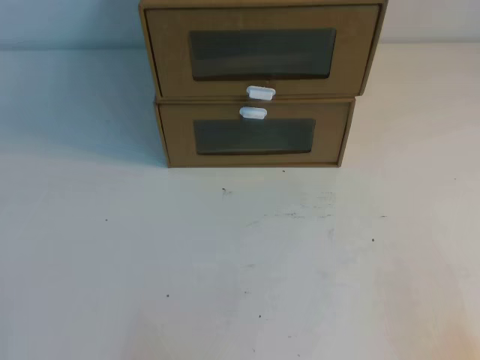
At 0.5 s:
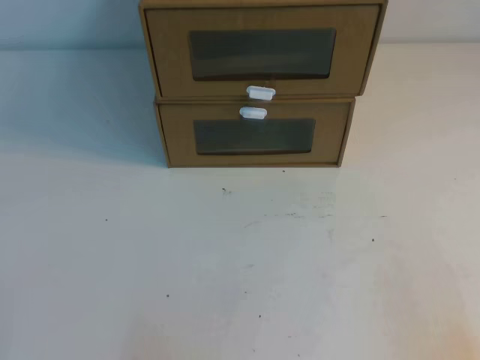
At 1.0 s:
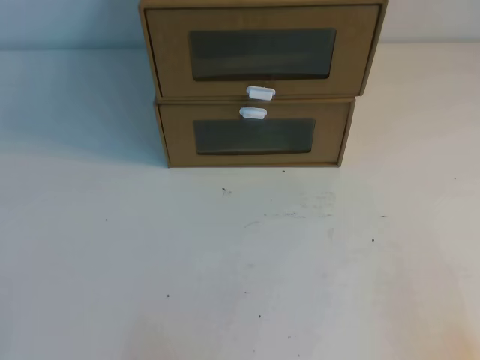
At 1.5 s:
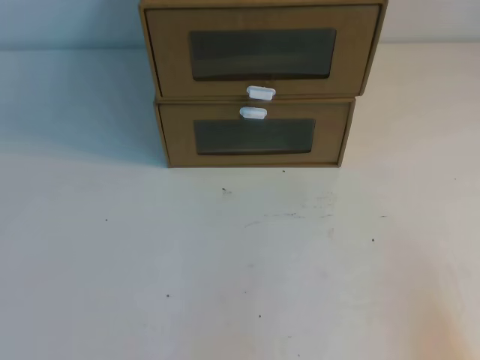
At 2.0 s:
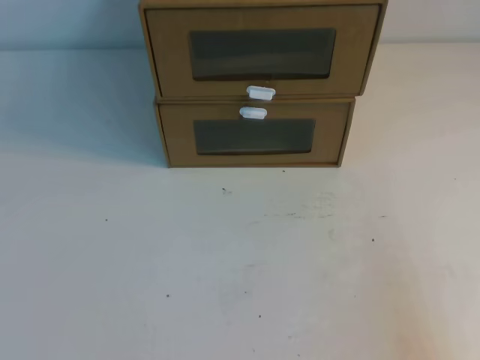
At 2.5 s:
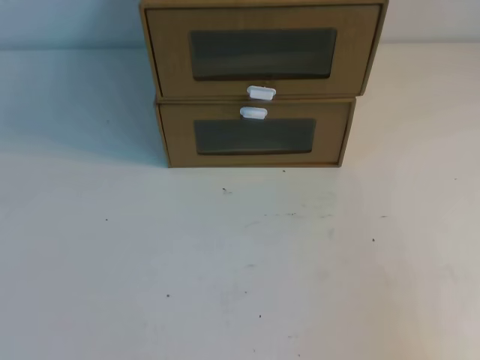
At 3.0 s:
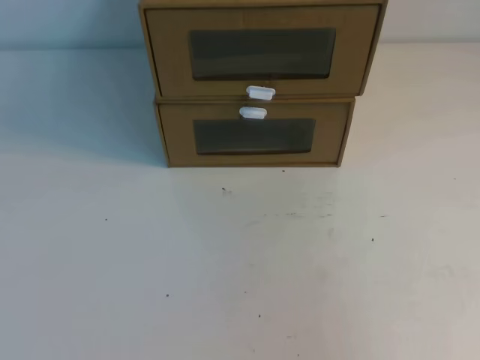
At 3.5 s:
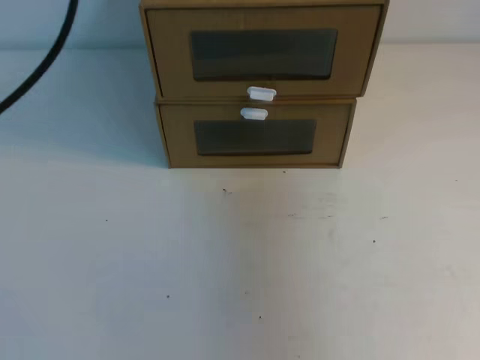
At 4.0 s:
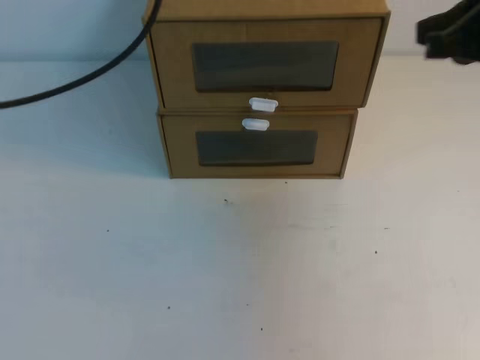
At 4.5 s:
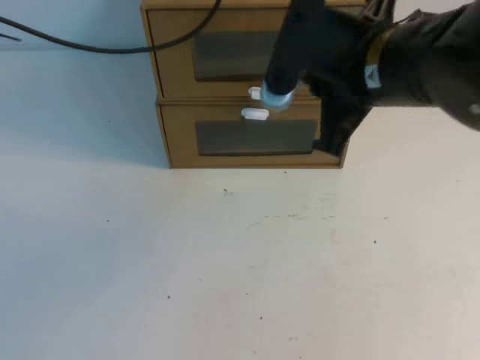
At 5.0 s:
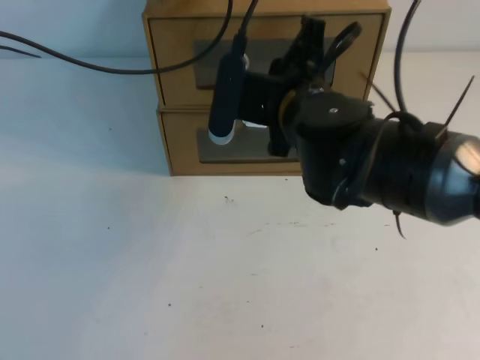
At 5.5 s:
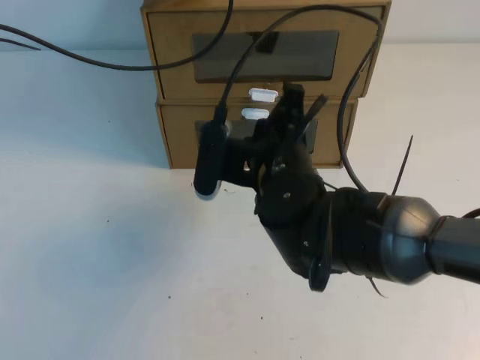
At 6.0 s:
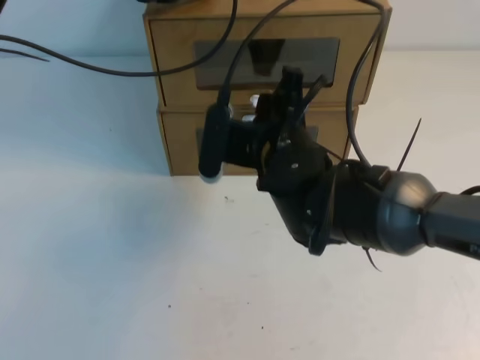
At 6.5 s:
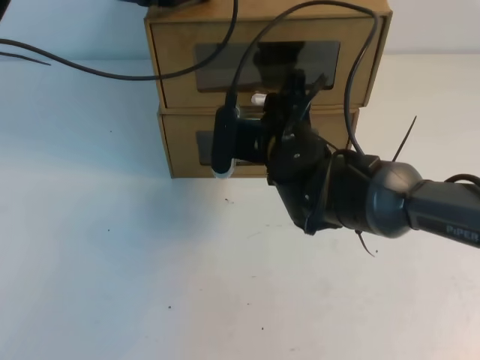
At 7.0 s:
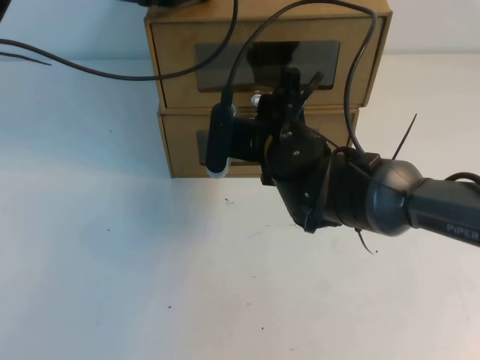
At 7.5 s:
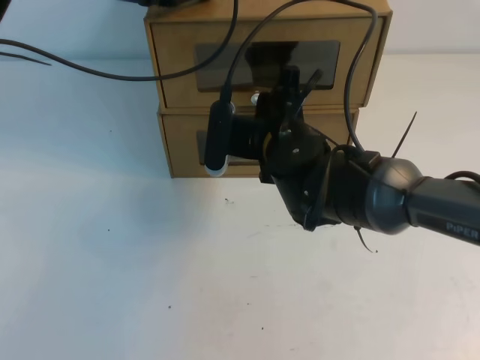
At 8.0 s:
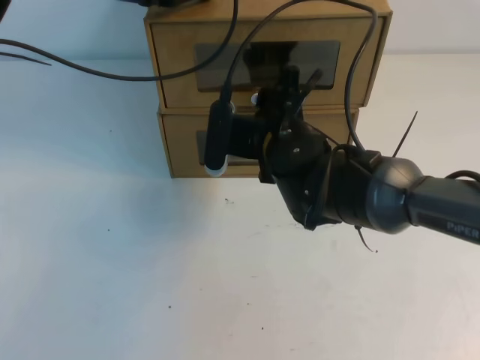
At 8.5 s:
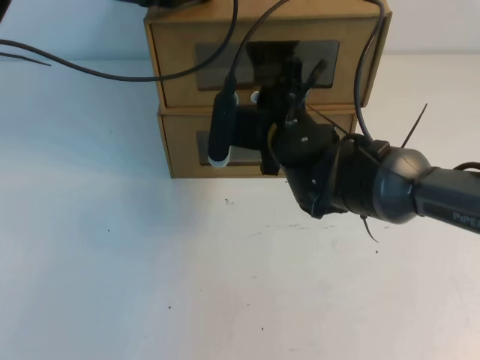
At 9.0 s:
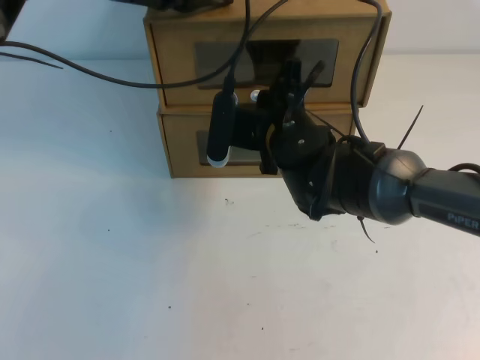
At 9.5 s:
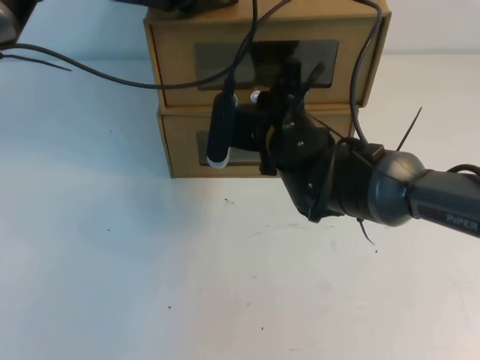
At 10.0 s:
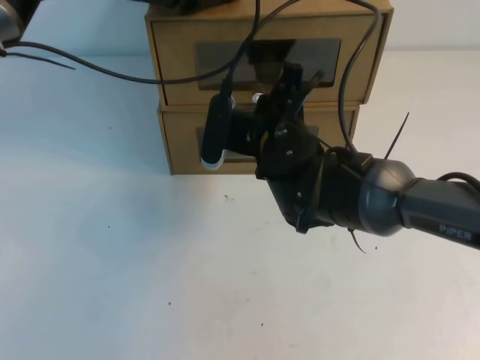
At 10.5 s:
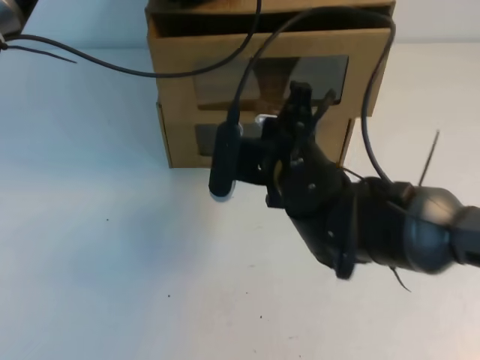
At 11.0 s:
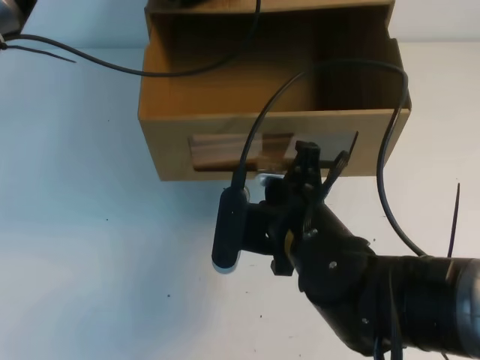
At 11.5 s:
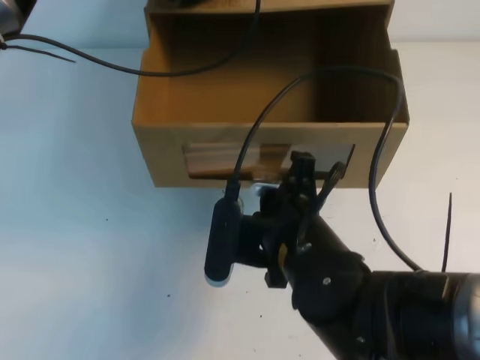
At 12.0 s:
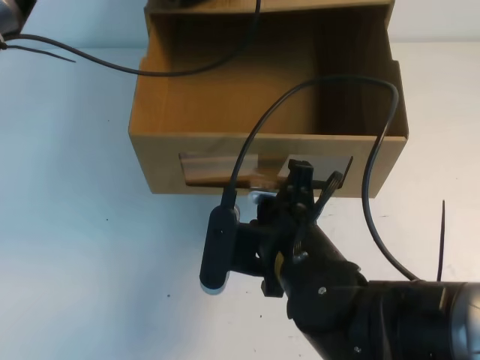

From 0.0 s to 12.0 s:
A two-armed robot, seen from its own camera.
Task of the whole recording: open the shoebox on the table.
From 2.0 s to 4.0 s: Both grippers move forward and upward, about 35 cm.
From 4.0 s to 6.0 s: The right gripper shifts roughly 25 cm to the left and downward, and opens up. The left gripper is displaced forward, downward and to the right by some 15 cm.
From 6.0 s to 8.0 s: The right gripper opens up.
From 8.0 s to 10.0 s: The right gripper closes up.
From 10.0 s to 12.0 s: The right gripper shifts some 15 cm backward.

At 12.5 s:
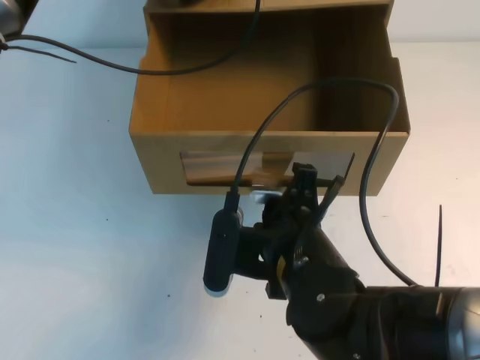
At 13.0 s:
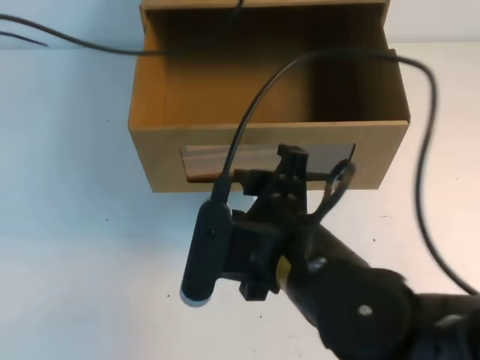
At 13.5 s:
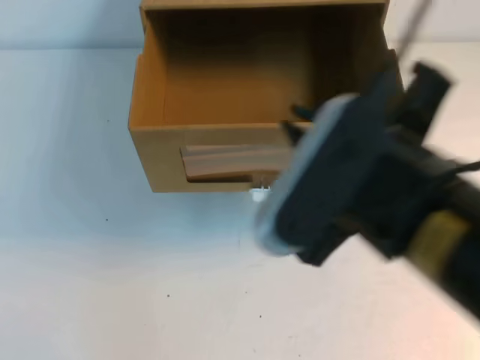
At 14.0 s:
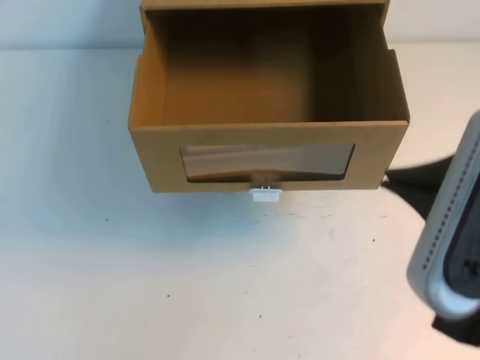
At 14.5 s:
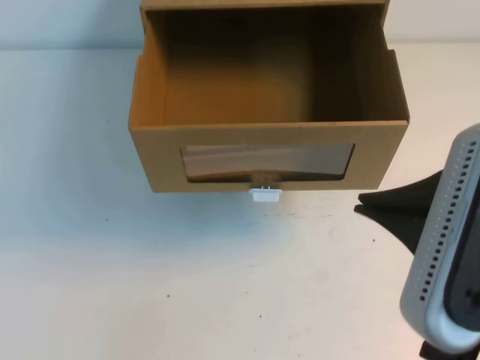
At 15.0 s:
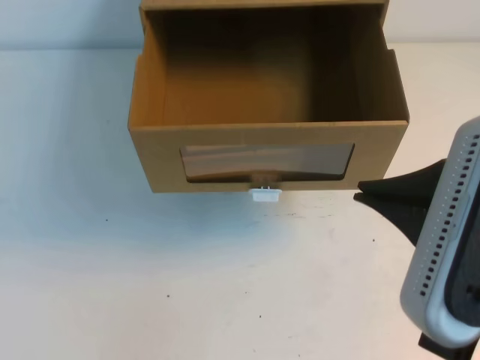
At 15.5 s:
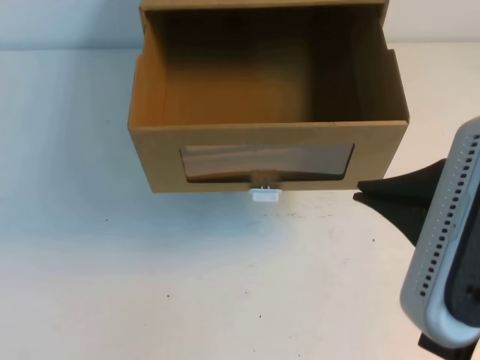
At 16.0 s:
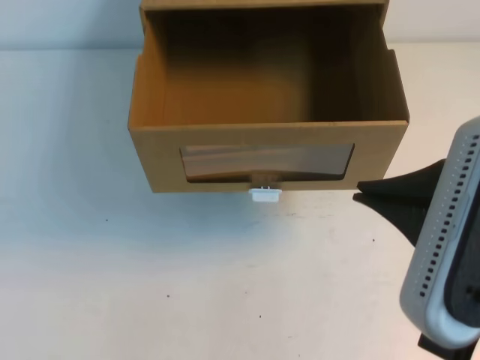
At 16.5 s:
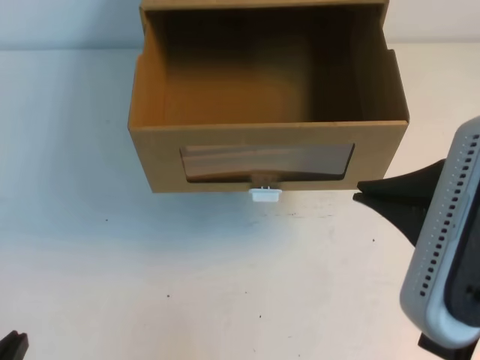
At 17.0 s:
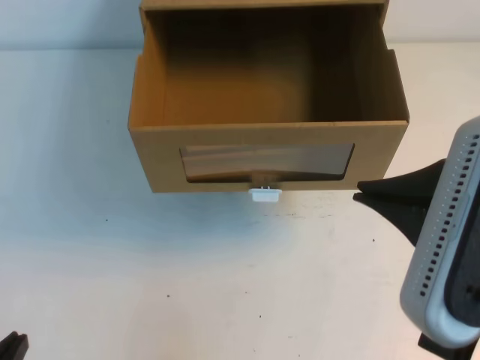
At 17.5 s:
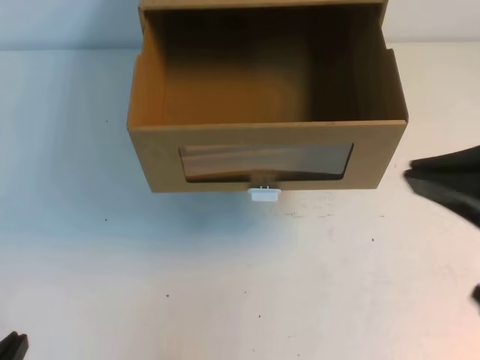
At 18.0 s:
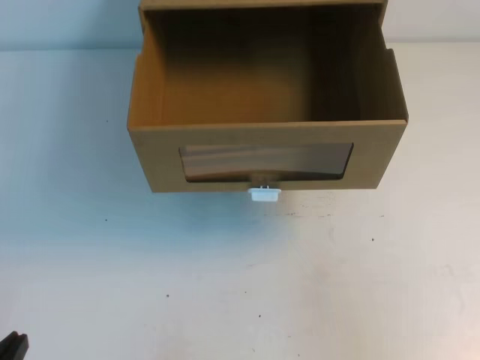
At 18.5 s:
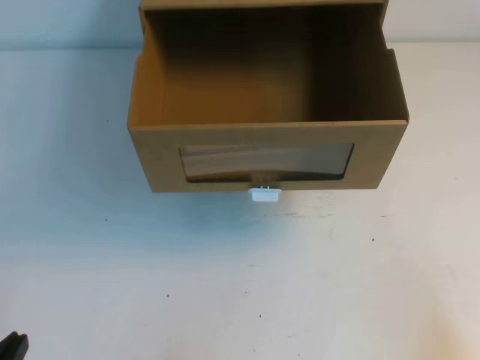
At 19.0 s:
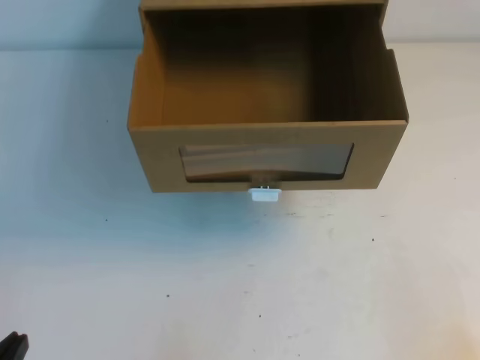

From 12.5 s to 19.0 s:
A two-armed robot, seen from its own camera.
Task of the whole recording: open the shoebox on the table.
Step, from 12.5 s to 19.0 s: Open the shoe box.
From 12.5 s to 14.5 s: The right gripper is displaced upward, to the right and backward by about 25 cm, and closes its fingers. The left gripper moves backward, approximately 40 cm.
From 17.0 s to 19.0 s: The right gripper is displaced downward and to the right by some 30 cm.

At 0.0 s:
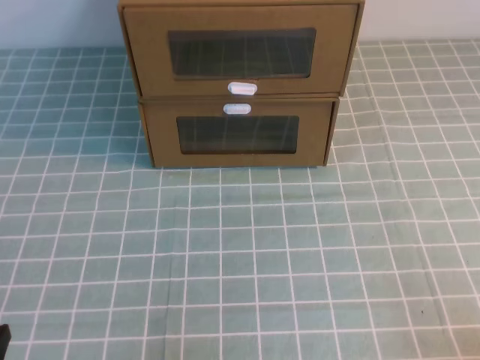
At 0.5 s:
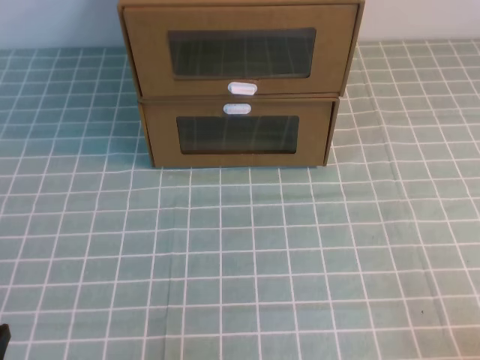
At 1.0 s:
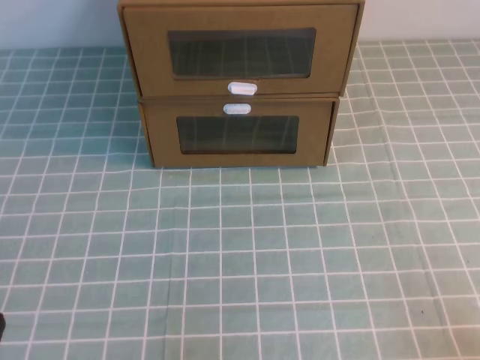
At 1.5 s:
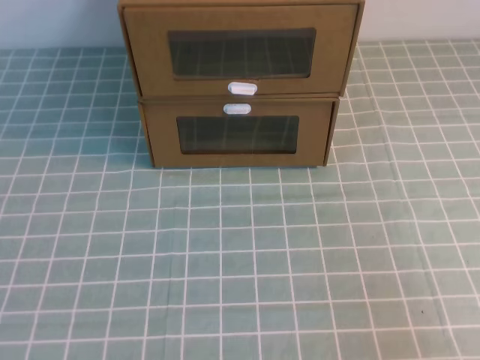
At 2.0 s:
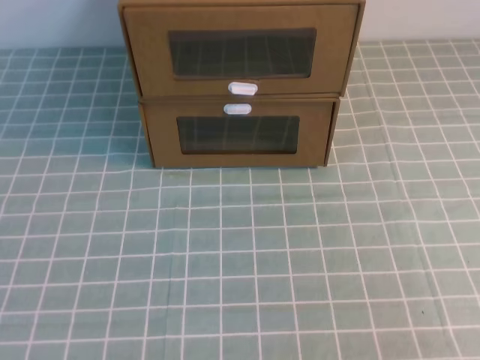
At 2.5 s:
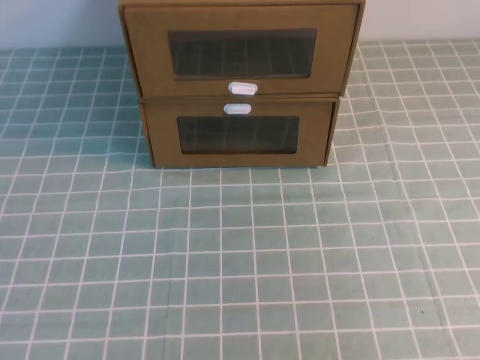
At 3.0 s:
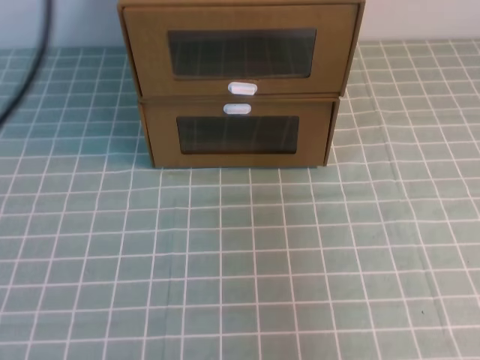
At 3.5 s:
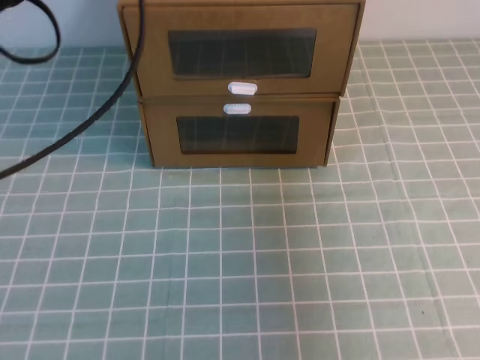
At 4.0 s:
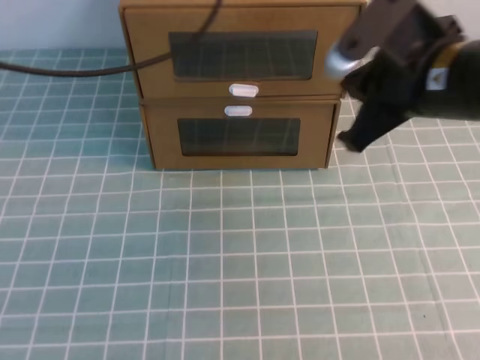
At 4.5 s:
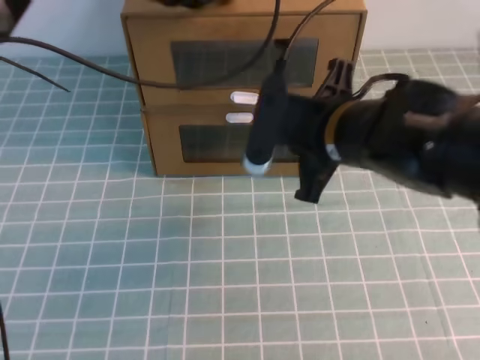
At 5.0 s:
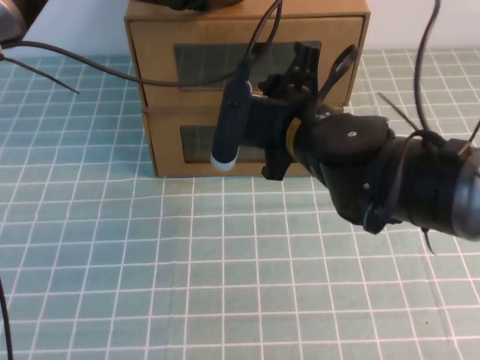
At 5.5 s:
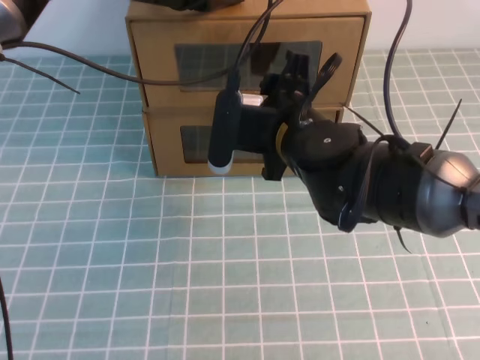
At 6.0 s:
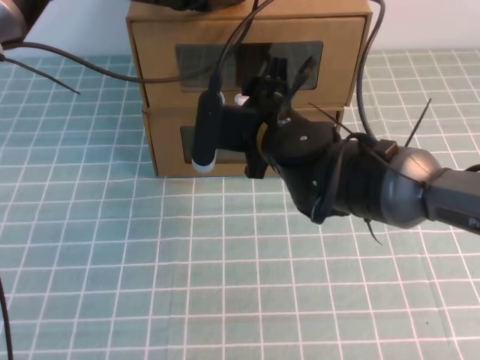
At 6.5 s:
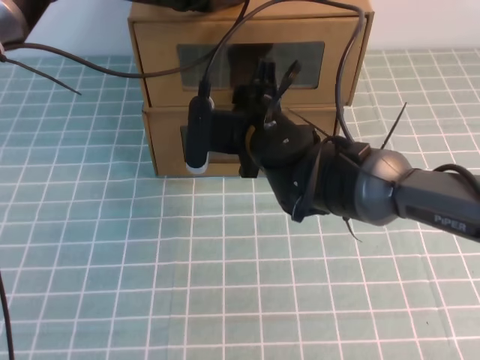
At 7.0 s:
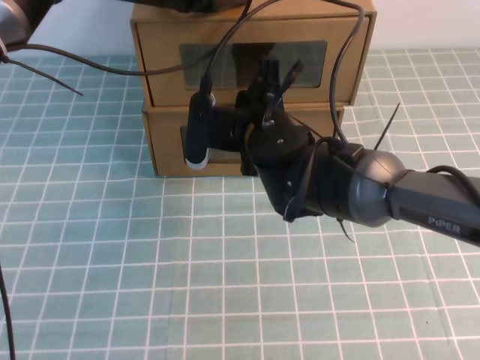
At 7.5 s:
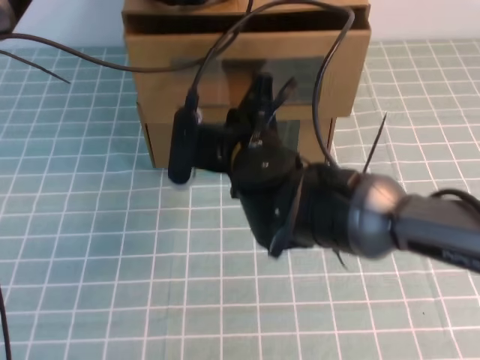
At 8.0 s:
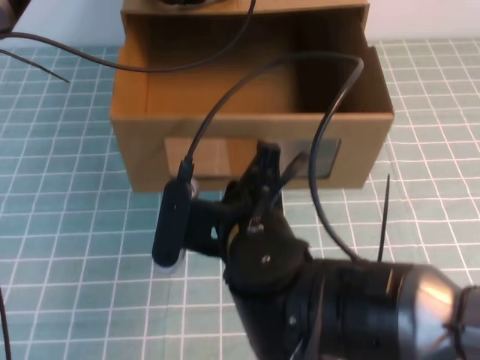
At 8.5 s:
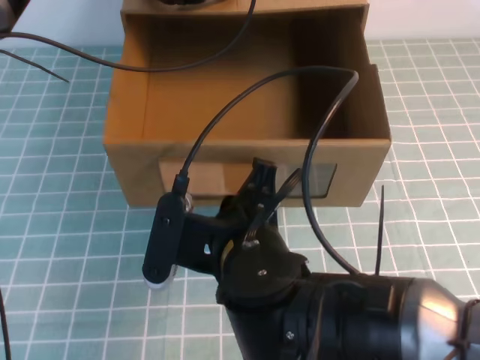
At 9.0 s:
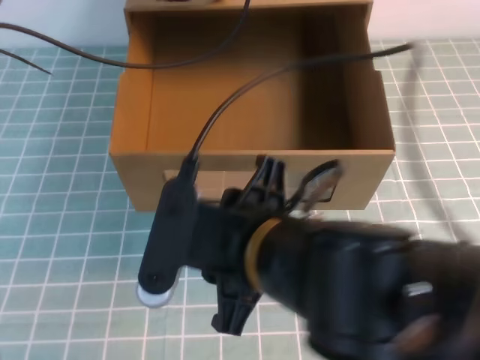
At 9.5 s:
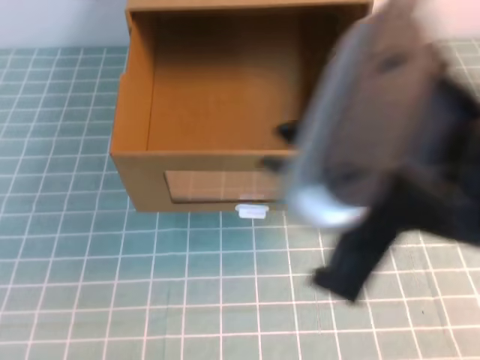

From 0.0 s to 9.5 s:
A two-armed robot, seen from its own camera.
Task of the whole recording: open the shoebox on the cyan tablecloth.
From 2.0 s to 4.0 s: The right gripper travels forward and to the left by roughly 35 cm; the left gripper goes about 35 cm forward.
From 4.0 s to 5.5 s: The left gripper heads forward, downward and to the right, covering about 10 cm. Meanwhile the right gripper moves to the left and downward, some 15 cm, and opens up.
From 5.5 s to 7.5 s: The right gripper changes place by some 5 cm, and closes its fingers.
From 7.5 s to 9.5 s: The left gripper shifts approximately 25 cm upward and backward, while the right gripper travels backward, upward and to the right by about 25 cm, and opens up.
